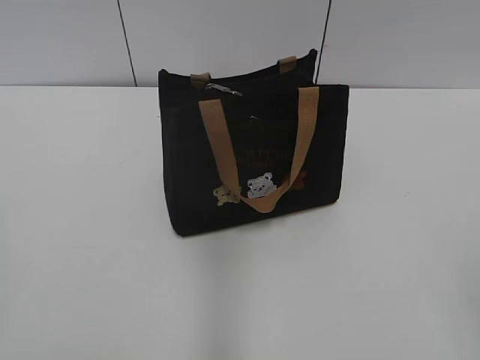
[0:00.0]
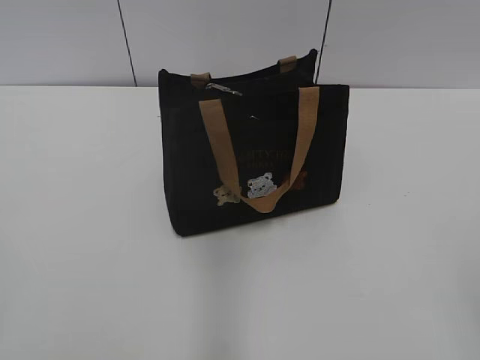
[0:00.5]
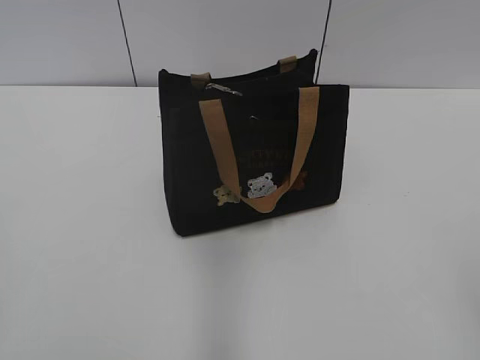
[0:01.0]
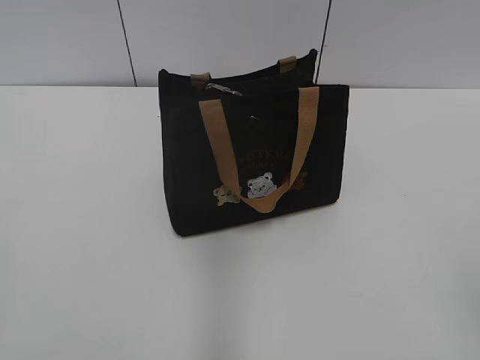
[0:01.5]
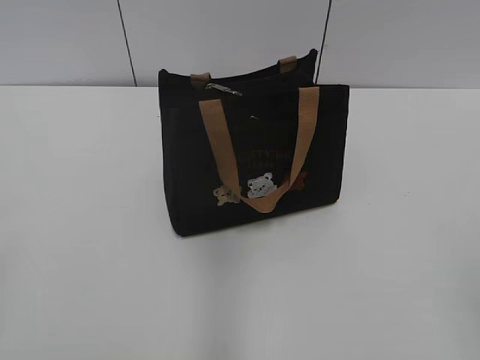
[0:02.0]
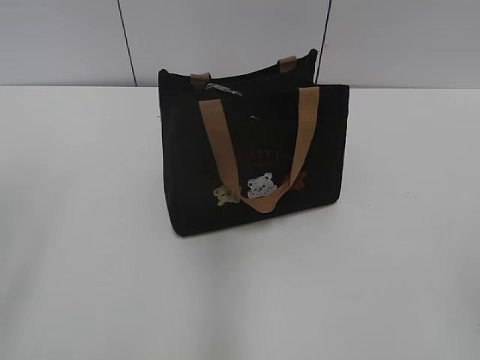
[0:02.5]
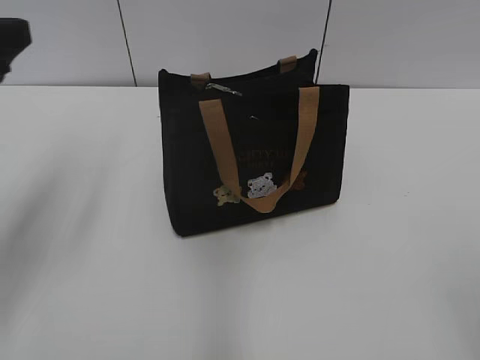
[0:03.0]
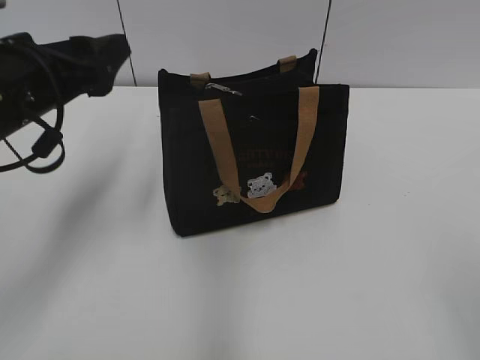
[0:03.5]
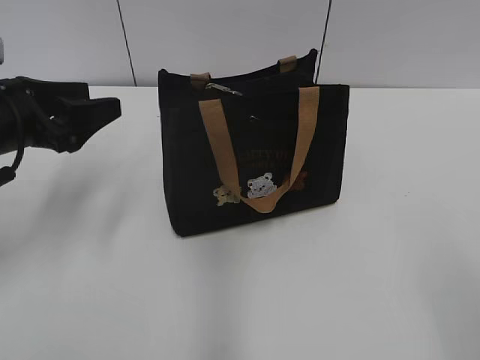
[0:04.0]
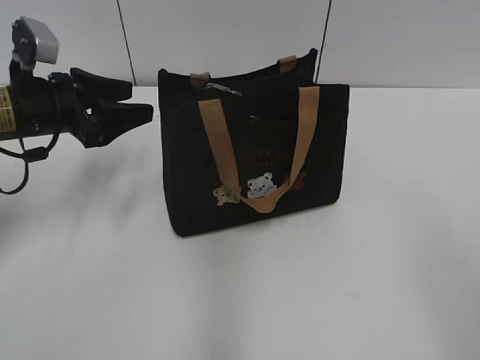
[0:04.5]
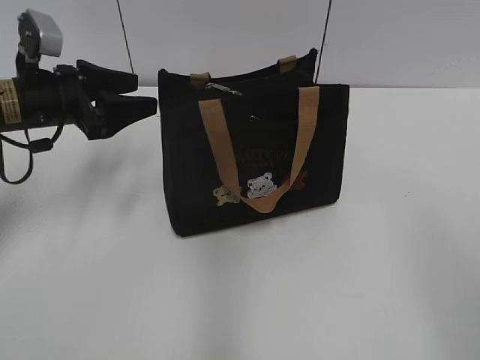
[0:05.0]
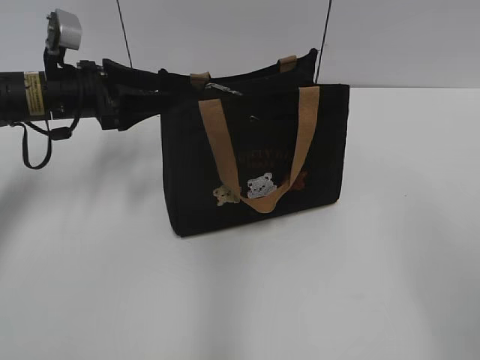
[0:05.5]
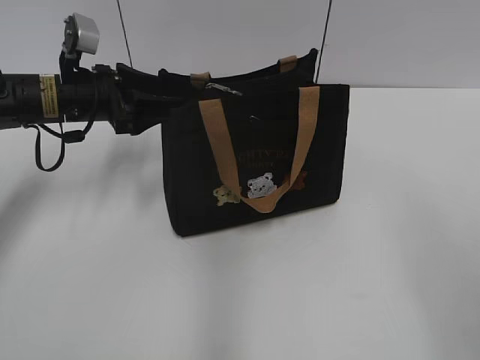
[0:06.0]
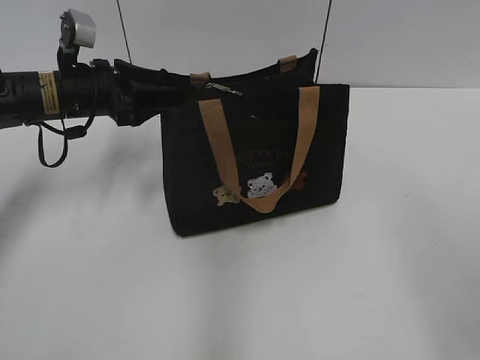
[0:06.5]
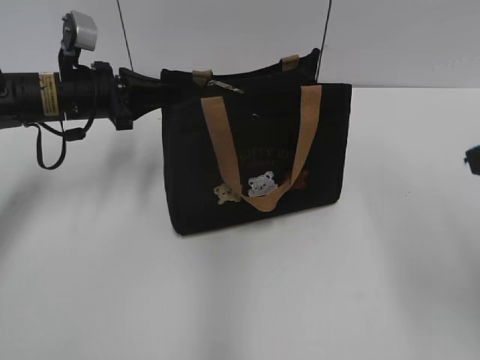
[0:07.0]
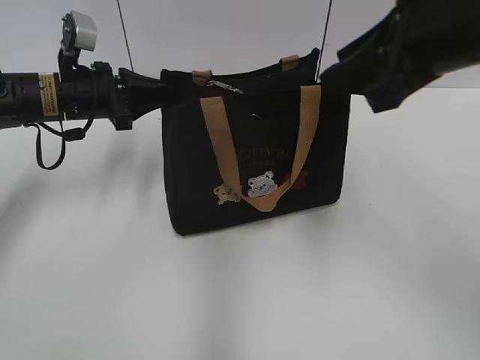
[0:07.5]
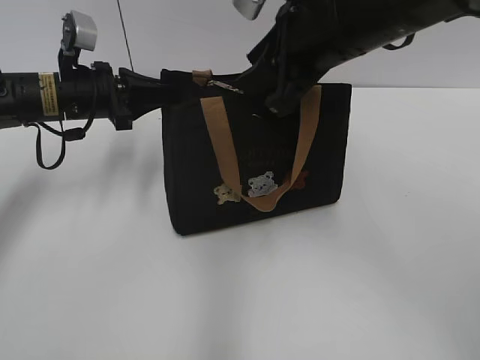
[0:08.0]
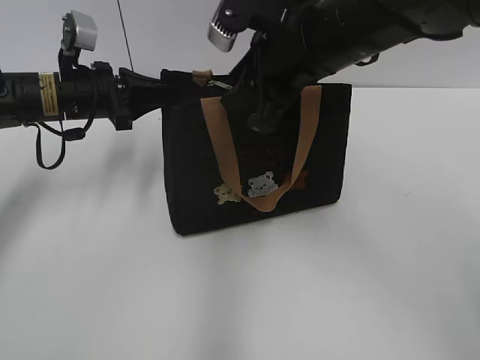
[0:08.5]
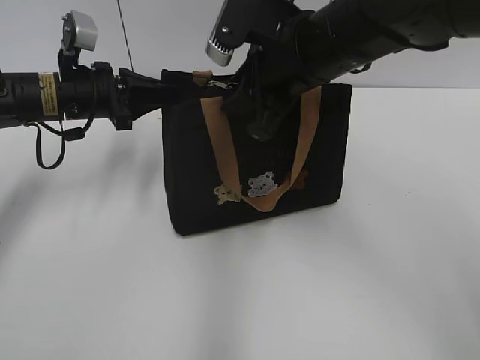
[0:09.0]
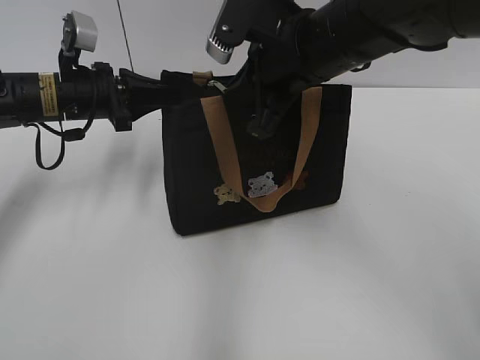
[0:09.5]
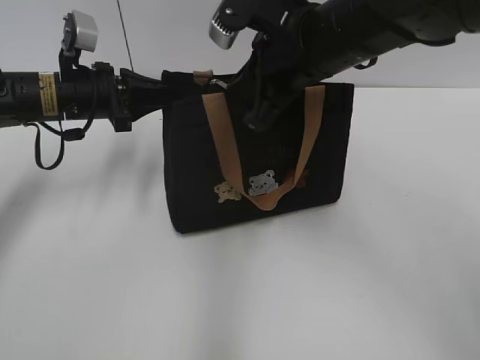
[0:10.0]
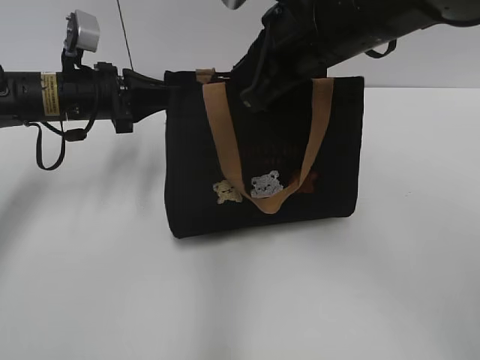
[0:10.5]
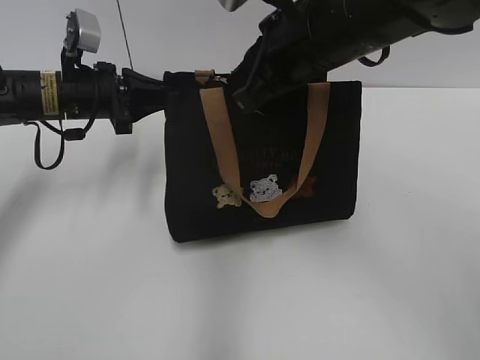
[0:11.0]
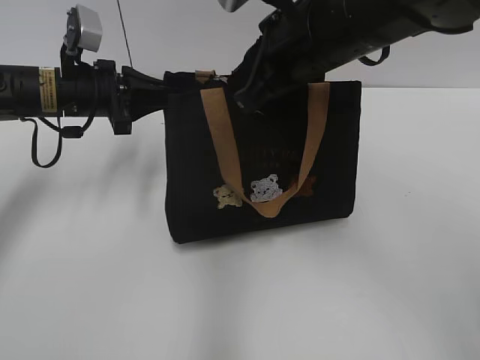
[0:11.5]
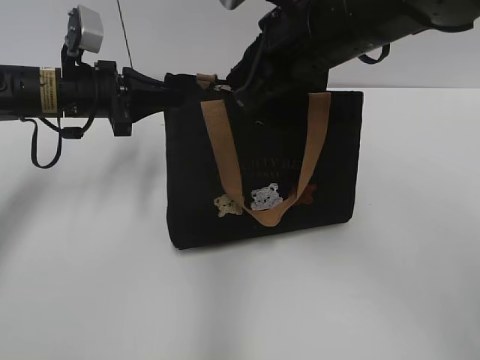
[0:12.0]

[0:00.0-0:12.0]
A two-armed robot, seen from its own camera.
0:02.0 to 0:04.0: The left gripper moves forward, about 30 cm.
0:04.0 to 0:06.0: The left gripper heads forward, covering about 10 cm.
0:06.0 to 0:08.0: The left gripper closes its fingers; the right gripper goes approximately 30 cm forward and to the left.
0:08.0 to 0:10.0: The right gripper closes its fingers.
0:10.0 to 0:12.0: The grippers move only a little.

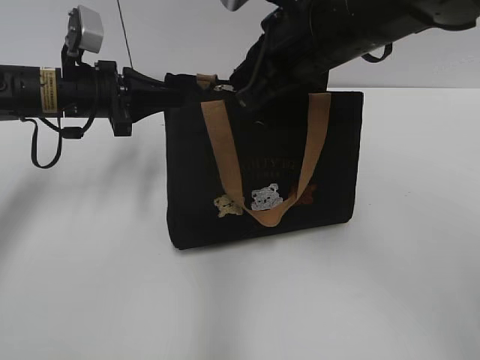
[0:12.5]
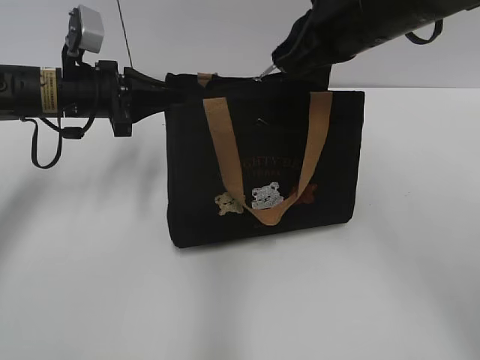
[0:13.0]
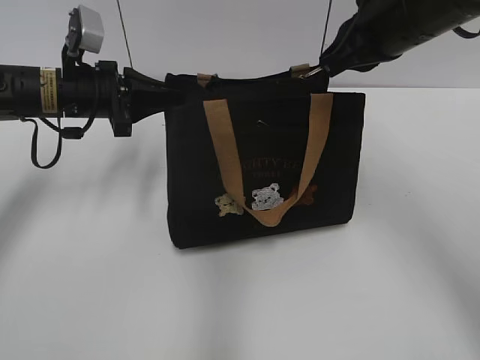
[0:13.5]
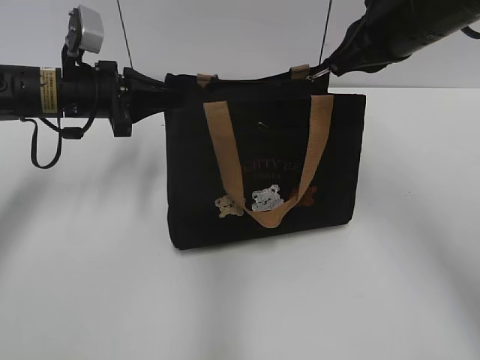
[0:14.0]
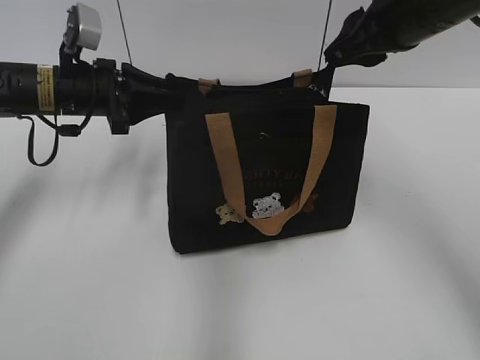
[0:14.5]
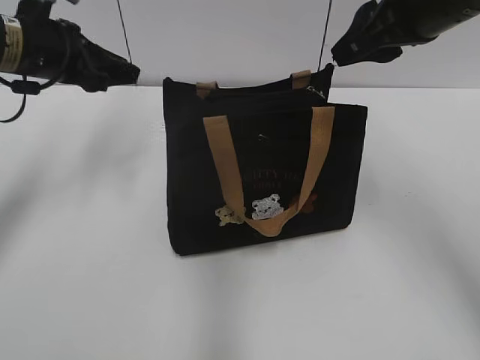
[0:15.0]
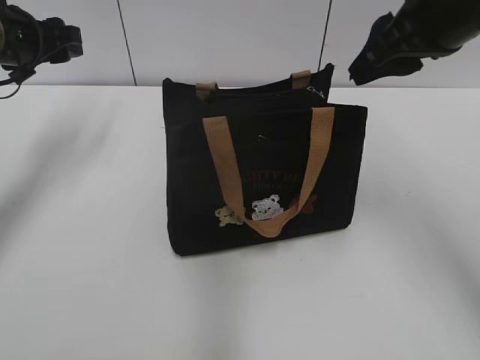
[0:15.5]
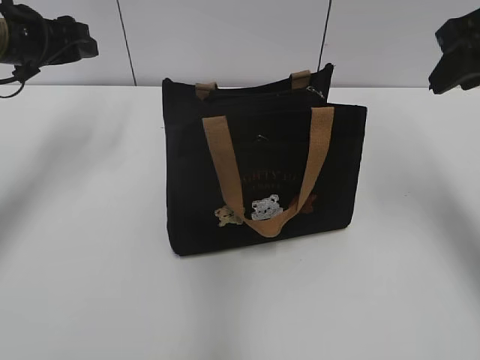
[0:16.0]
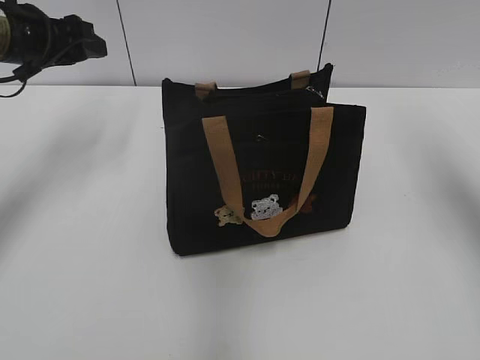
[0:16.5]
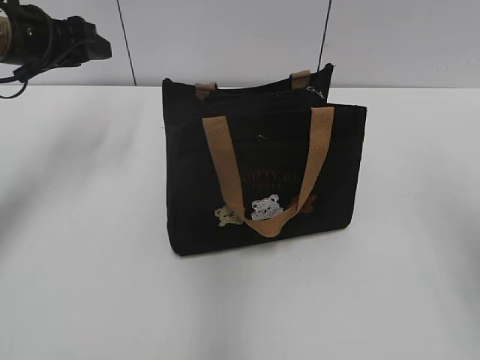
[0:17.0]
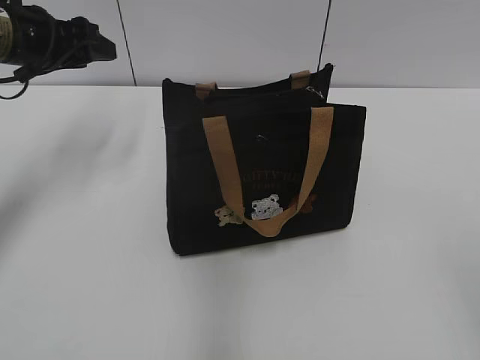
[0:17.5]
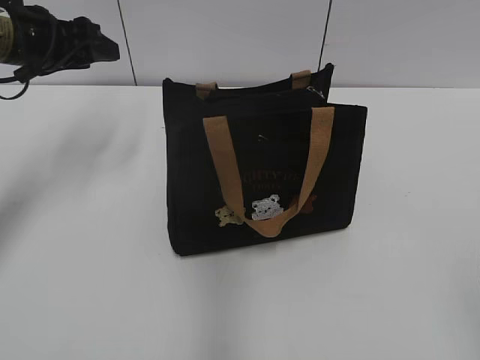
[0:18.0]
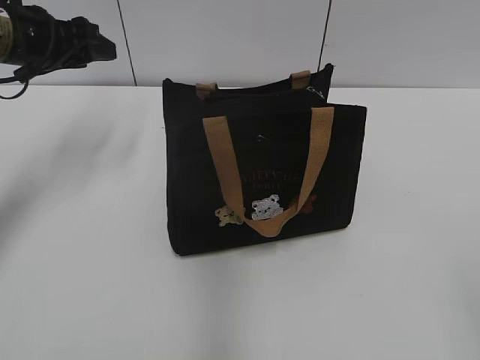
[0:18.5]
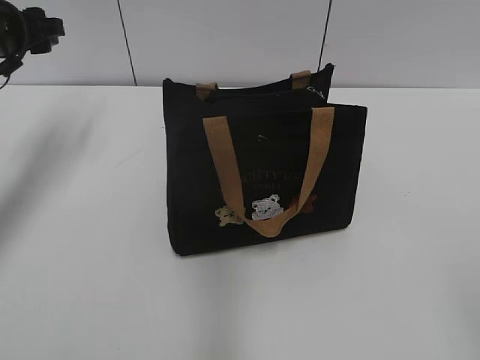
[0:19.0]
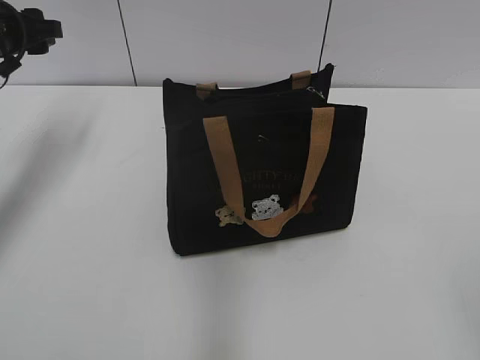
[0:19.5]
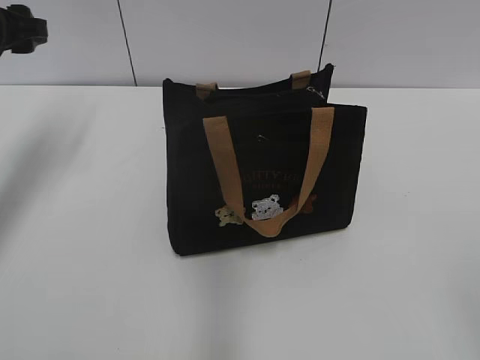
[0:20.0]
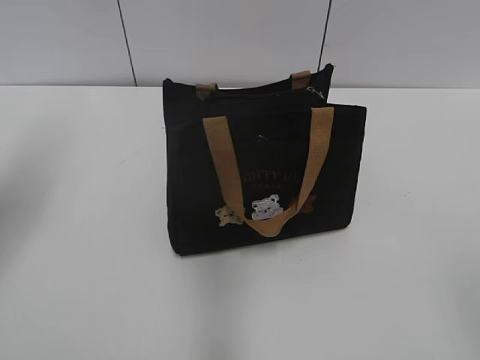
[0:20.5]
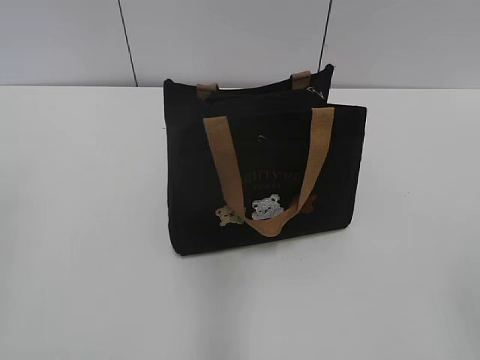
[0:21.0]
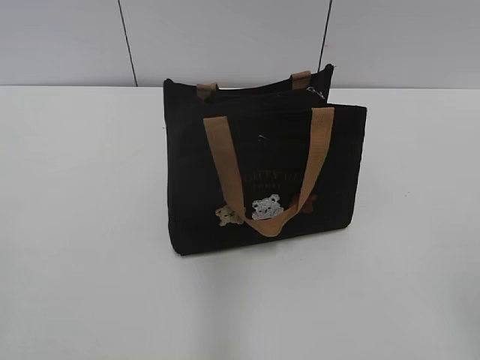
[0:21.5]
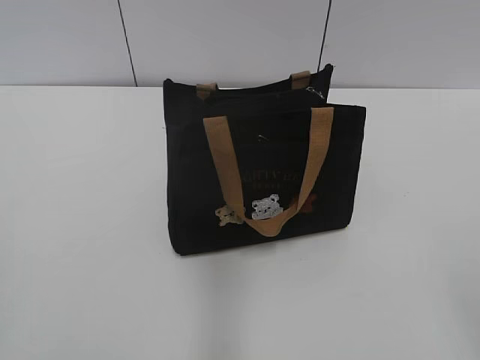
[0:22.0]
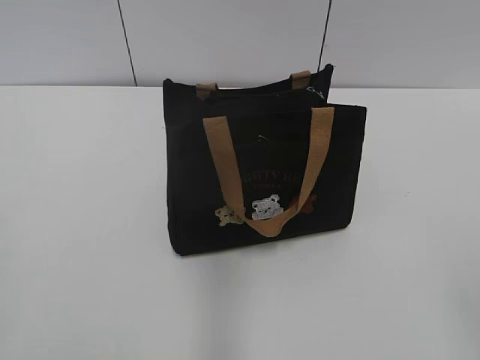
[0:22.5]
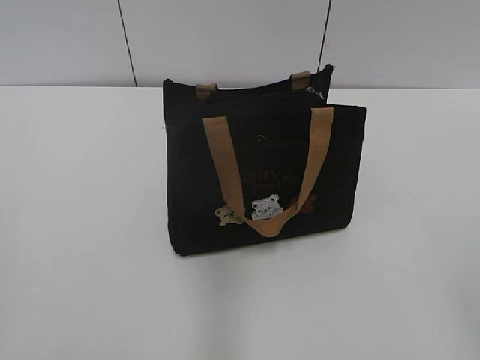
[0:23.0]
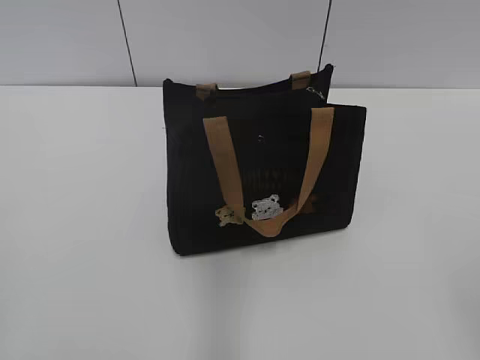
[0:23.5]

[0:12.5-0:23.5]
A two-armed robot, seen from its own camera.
Step, 0:14.5 to 0:15.0: Hold the bag with your left hand.
0:12.5 to 0:14.5: The right gripper heads to the right, covering approximately 10 cm, and opens.
0:14.5 to 0:16.0: The right gripper heads to the right, covering roughly 5 cm. The left gripper is displaced upward and to the left by about 10 cm, and opens up.
0:16.0 to 0:18.0: The right gripper shifts some 30 cm backward.
0:18.0 to 0:20.0: The left gripper shifts by about 5 cm.
0:20.0 to 0:21.5: The left gripper moves backward, about 40 cm.

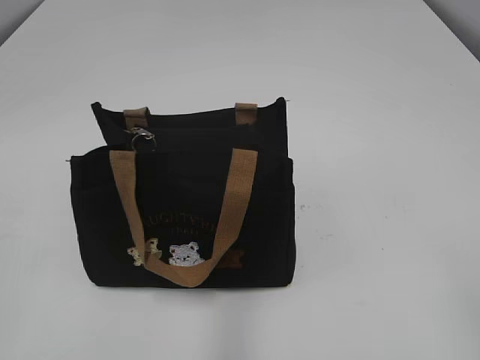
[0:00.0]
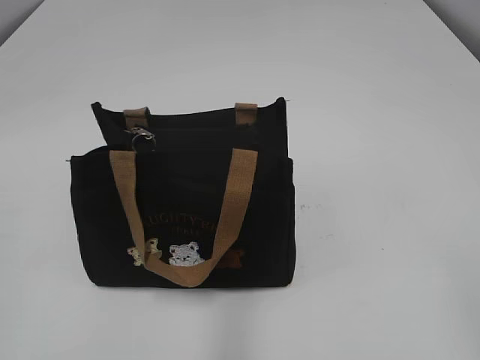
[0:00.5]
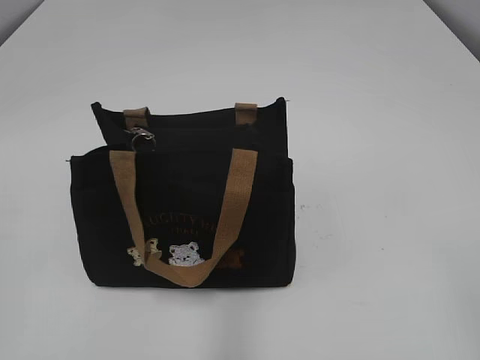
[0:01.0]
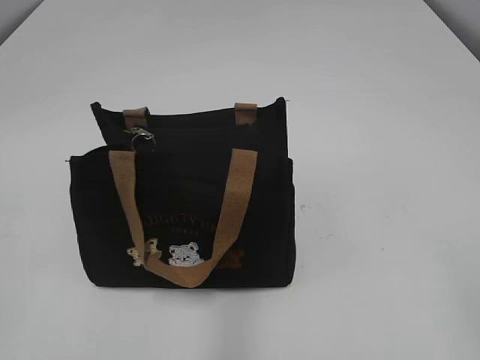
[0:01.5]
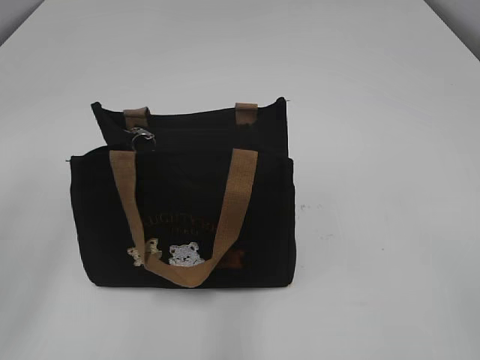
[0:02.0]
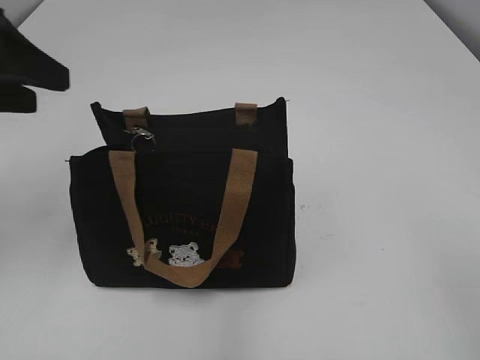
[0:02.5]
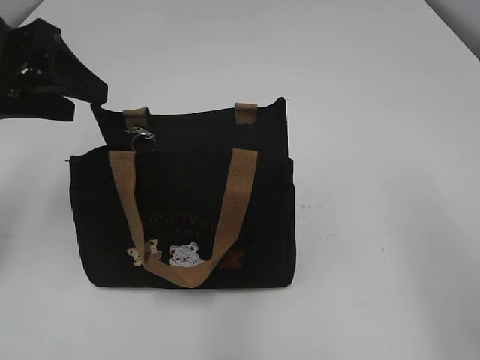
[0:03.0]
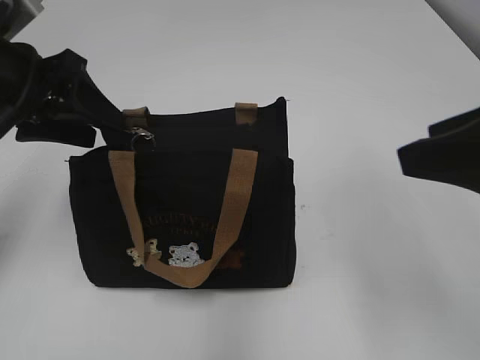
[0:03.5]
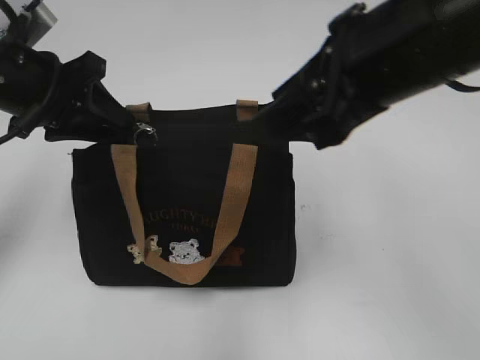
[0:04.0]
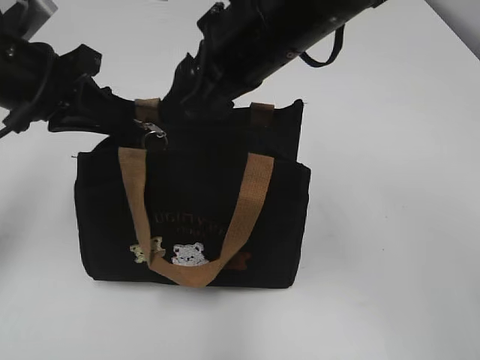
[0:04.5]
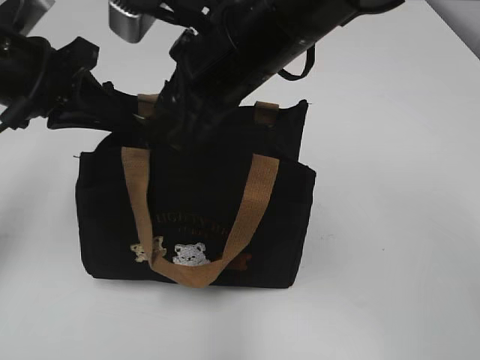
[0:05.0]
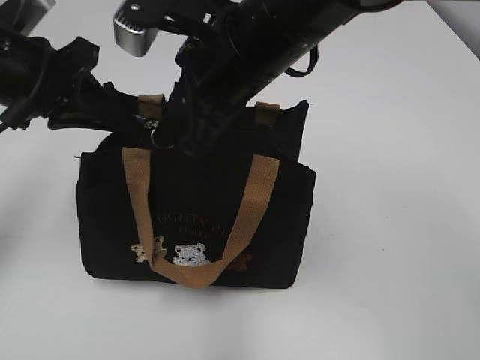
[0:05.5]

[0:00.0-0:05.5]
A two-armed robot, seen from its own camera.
0:02.0 to 0:03.5: The two grippers go approximately 20 cm forward. The right gripper opens.
0:03.5 to 0:05.5: The left gripper closes its fingers. Meanwhile the right gripper travels to the left and forward by roughly 25 cm.
